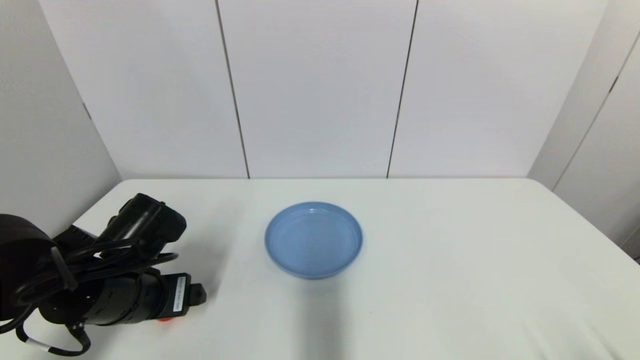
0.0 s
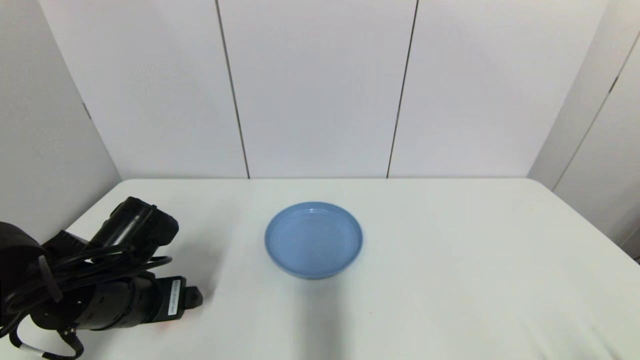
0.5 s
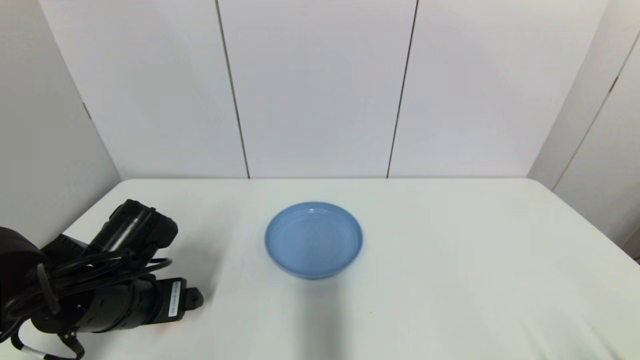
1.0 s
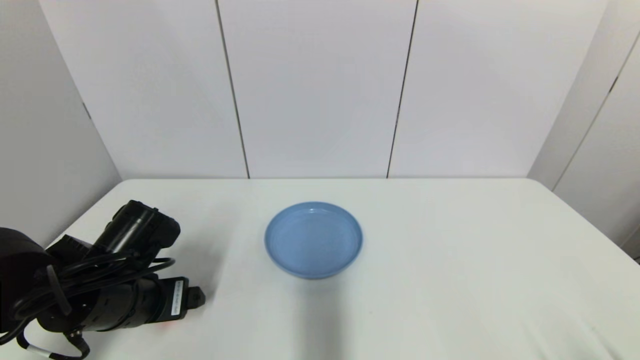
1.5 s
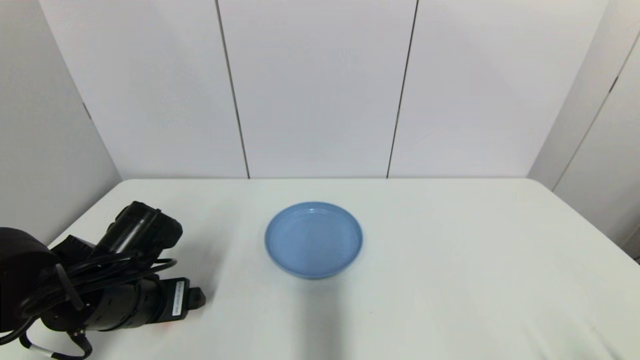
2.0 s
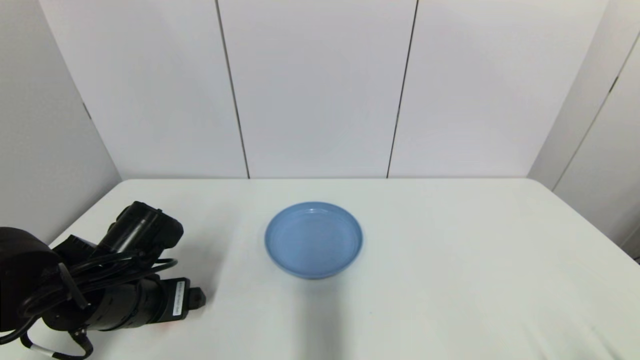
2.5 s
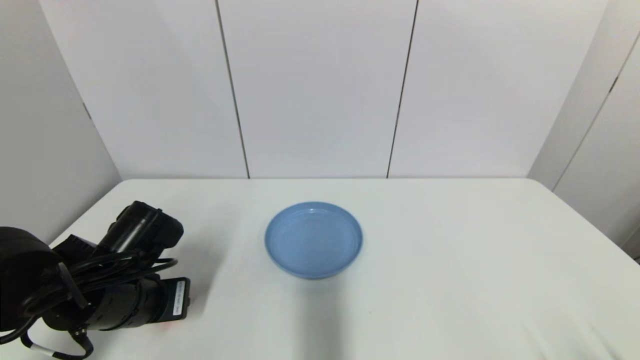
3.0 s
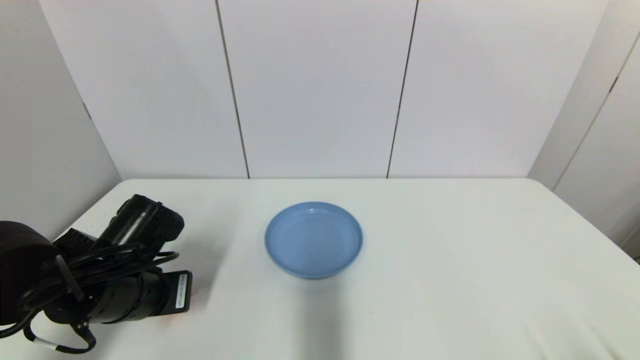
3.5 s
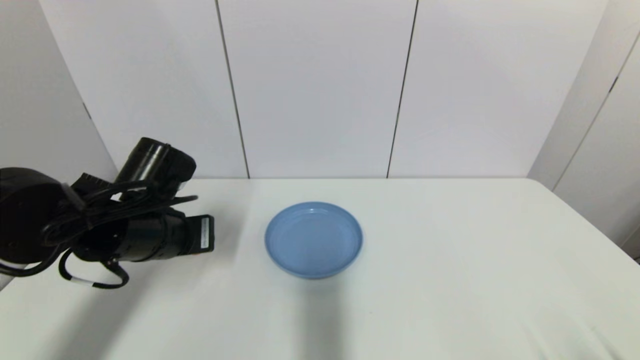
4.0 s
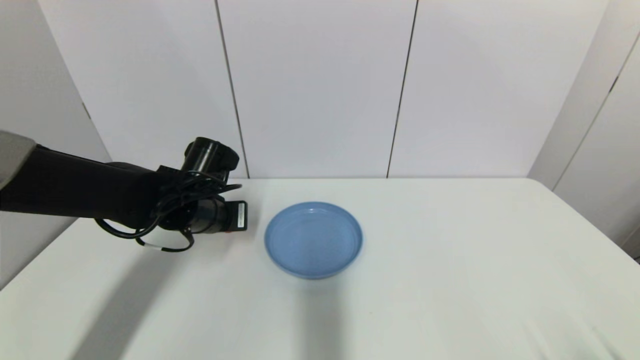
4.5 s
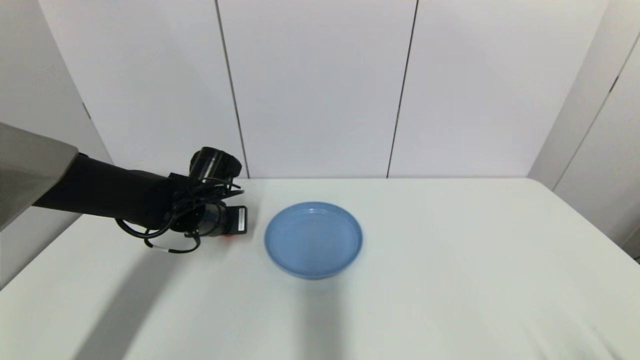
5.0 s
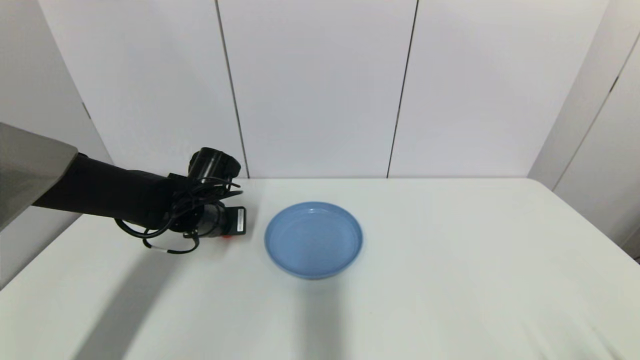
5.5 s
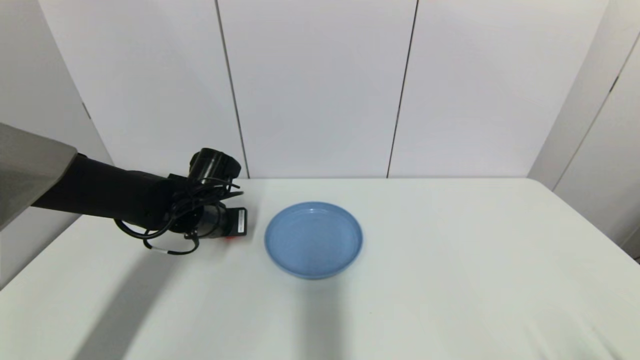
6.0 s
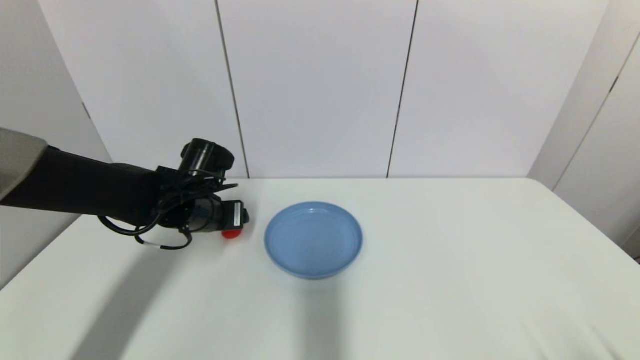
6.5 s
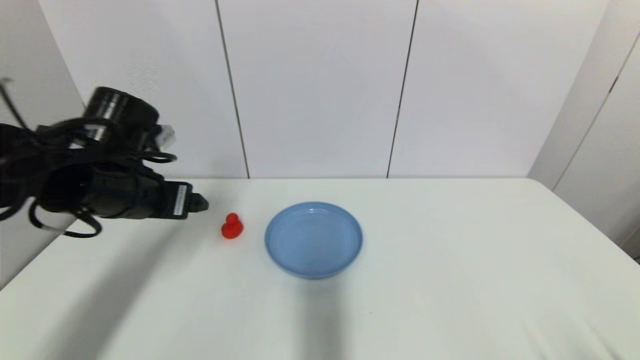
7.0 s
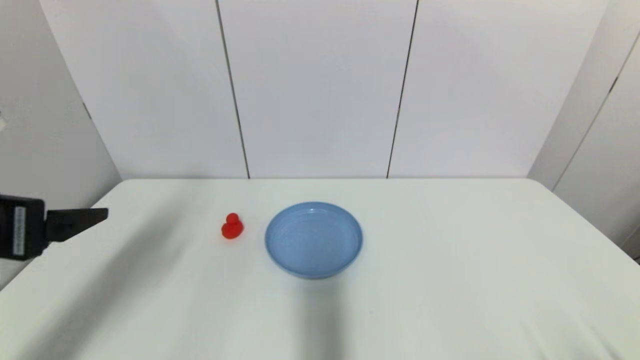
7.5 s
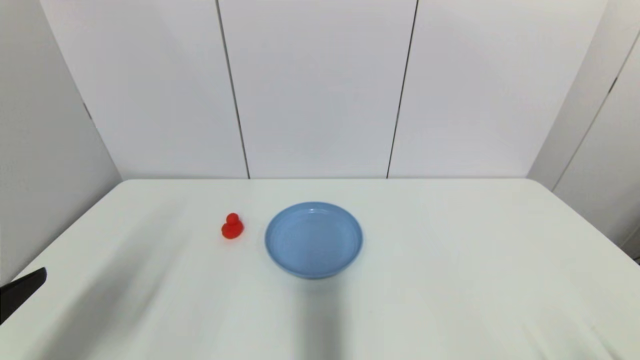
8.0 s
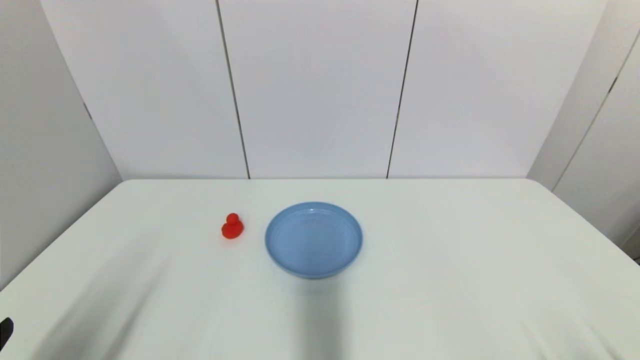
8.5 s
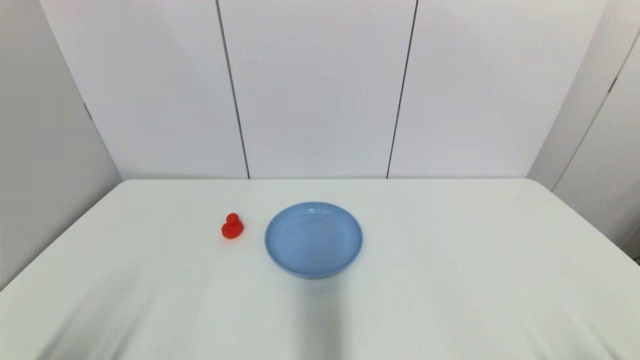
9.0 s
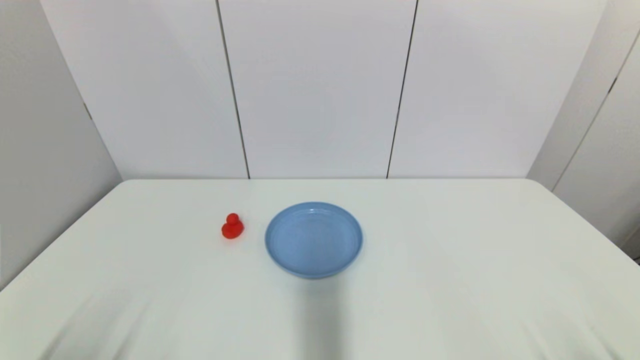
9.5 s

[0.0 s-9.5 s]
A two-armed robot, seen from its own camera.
Step, 0.0 to 3.5 s: Grasp the red duck with left gripper.
Step, 4.5 to 6.0 s: Place the red duck on the table with left gripper.
0.0 to 2.0 s: Neither gripper changes place.
2.0 to 4.0 s: The left gripper goes approximately 5 cm upward, and closes up.
4.0 to 5.5 s: The left gripper heads forward and downward, covering some 10 cm.
5.5 to 7.5 s: The left gripper travels backward, upward and to the left by about 25 cm, and opens up.
7.5 to 9.5 s: The left gripper goes approximately 25 cm downward and backward.

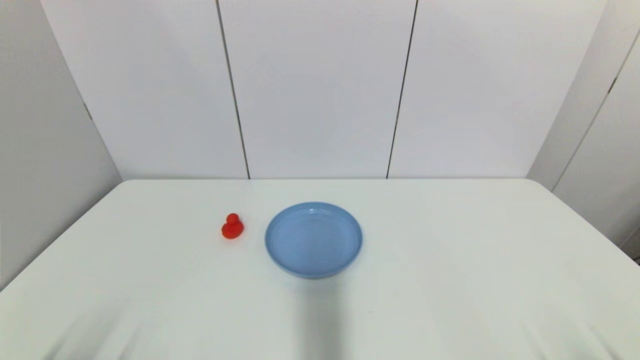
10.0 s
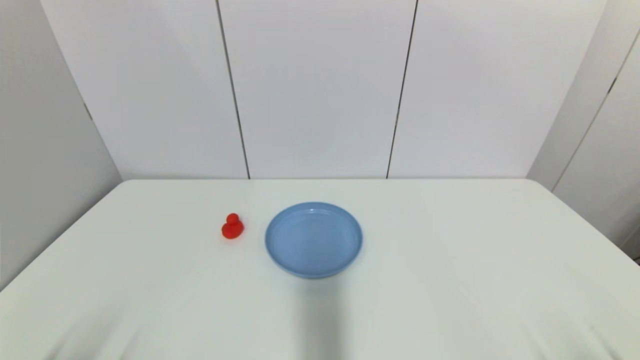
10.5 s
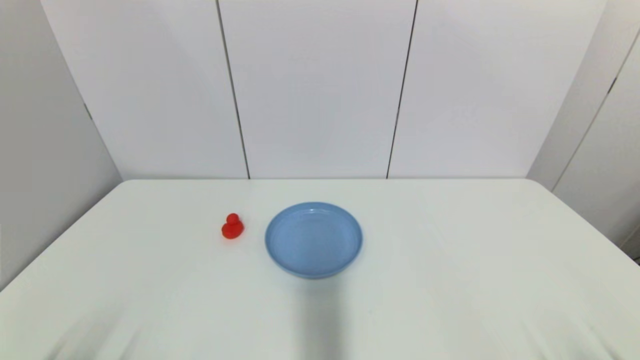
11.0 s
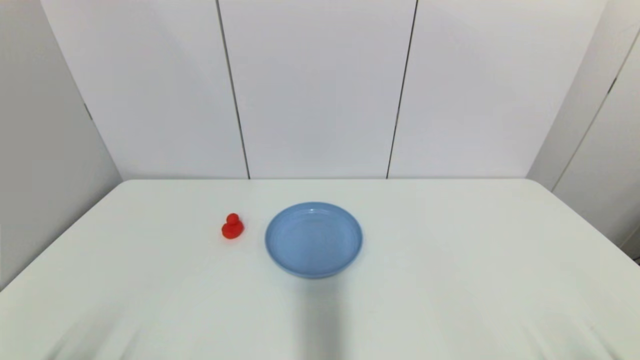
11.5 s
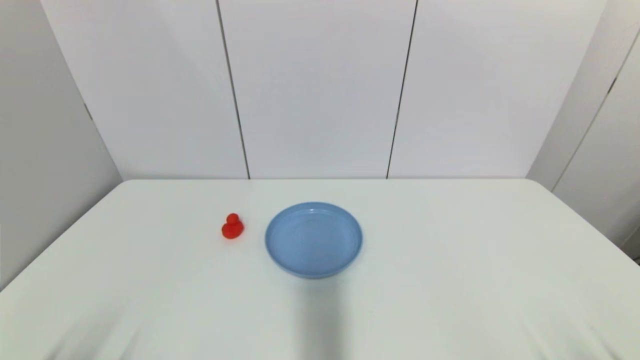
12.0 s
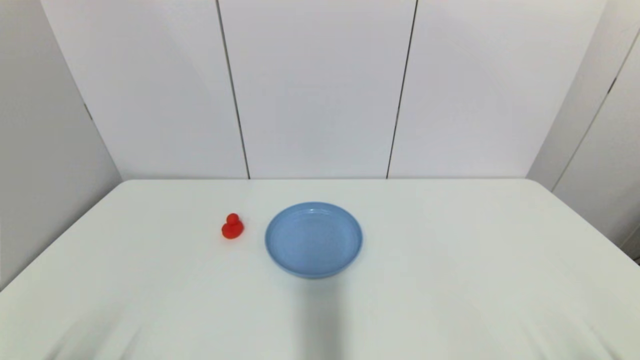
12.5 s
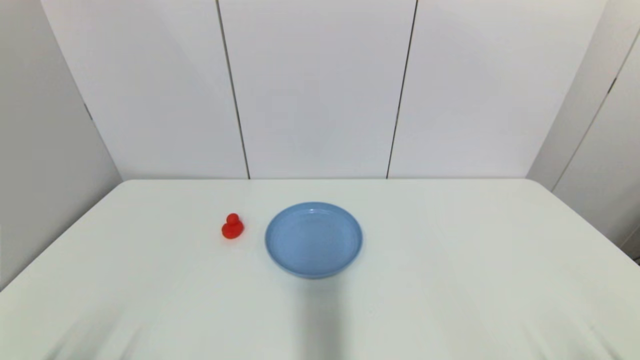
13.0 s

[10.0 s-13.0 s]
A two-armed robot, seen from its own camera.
10.0 to 13.0 s: Both grippers stay about where they are.

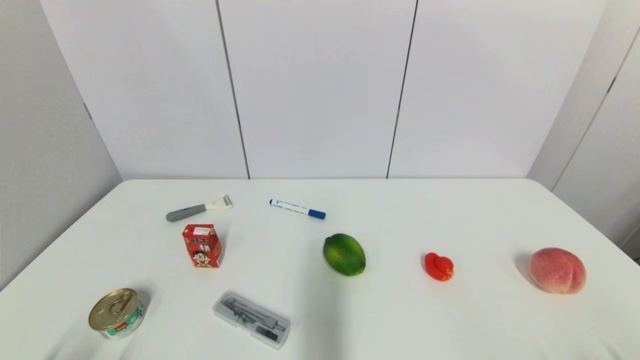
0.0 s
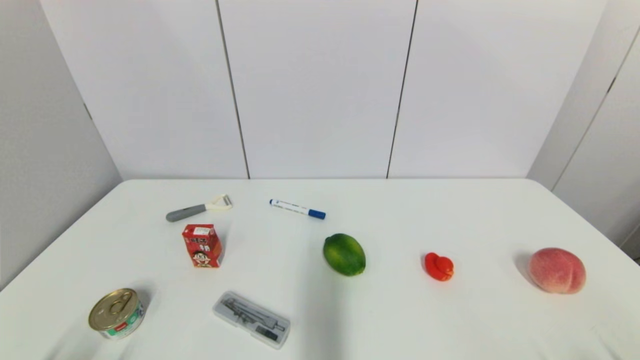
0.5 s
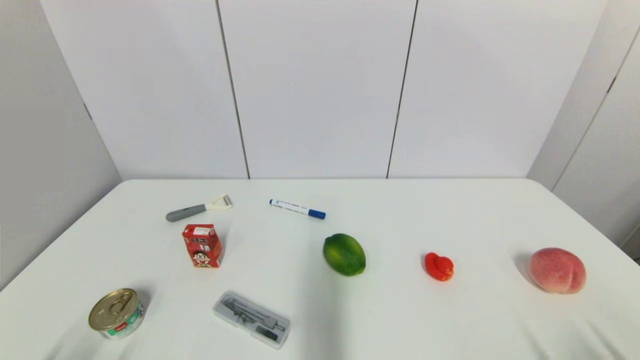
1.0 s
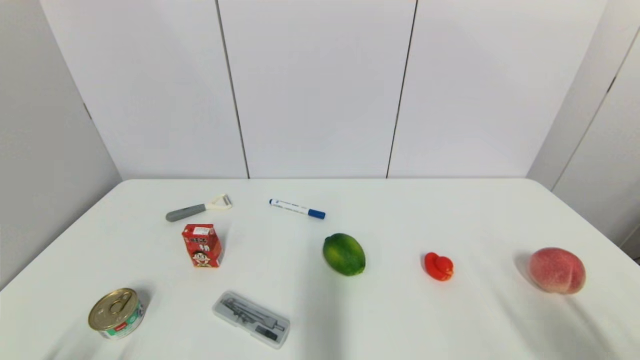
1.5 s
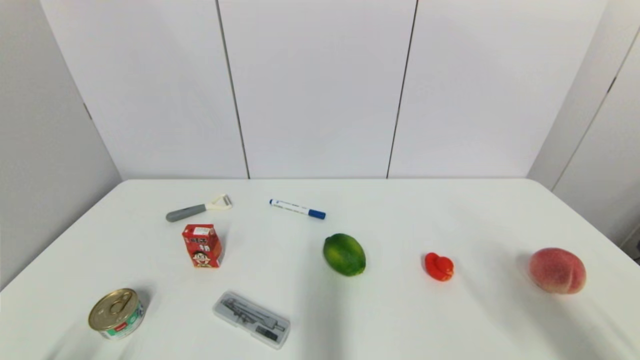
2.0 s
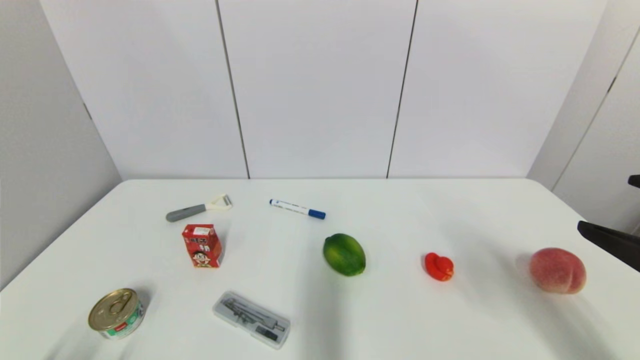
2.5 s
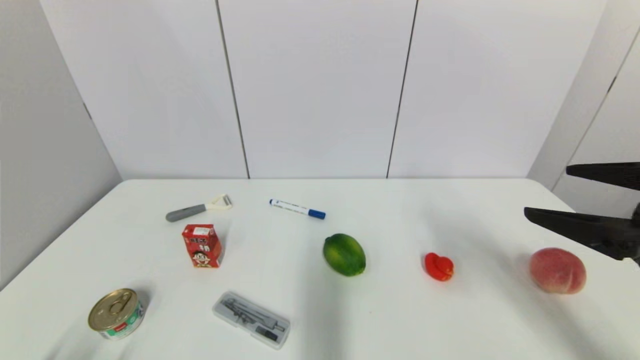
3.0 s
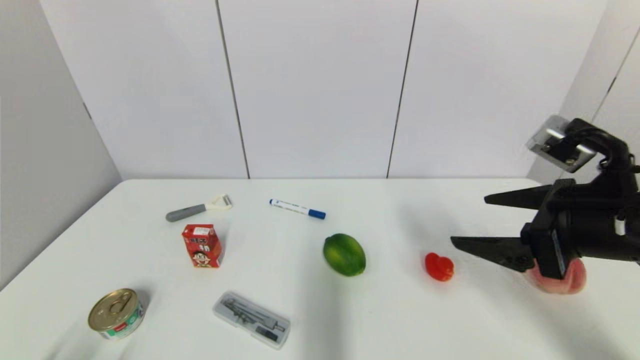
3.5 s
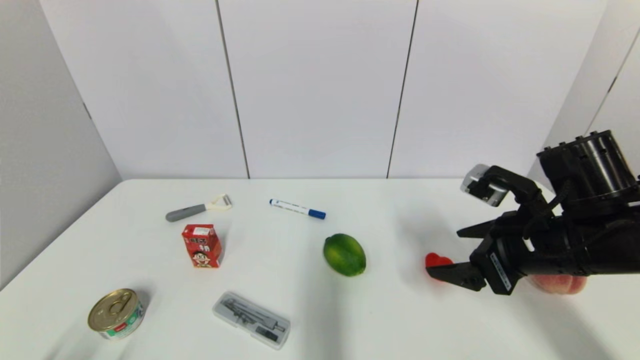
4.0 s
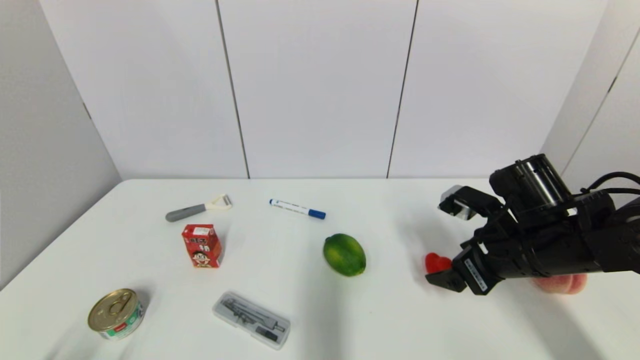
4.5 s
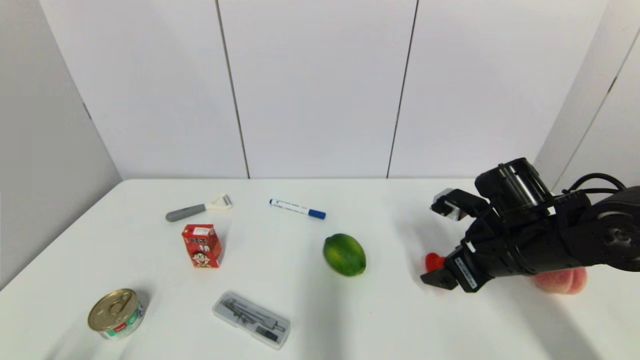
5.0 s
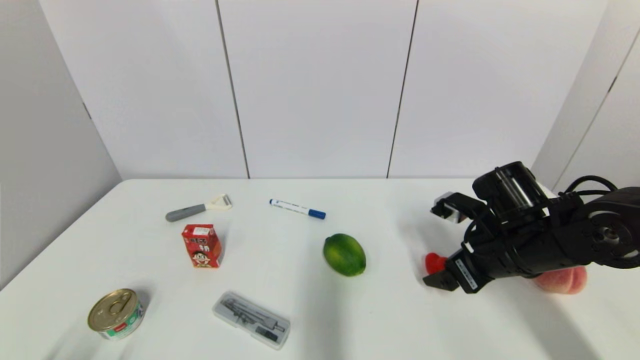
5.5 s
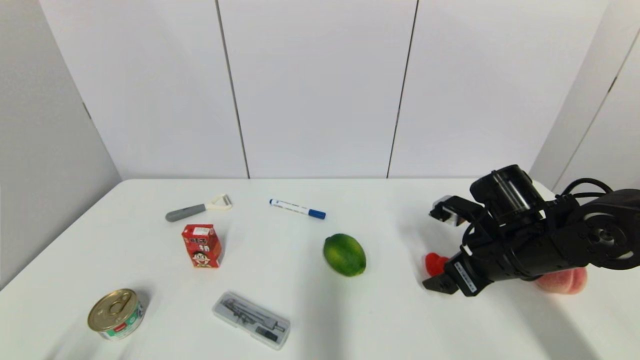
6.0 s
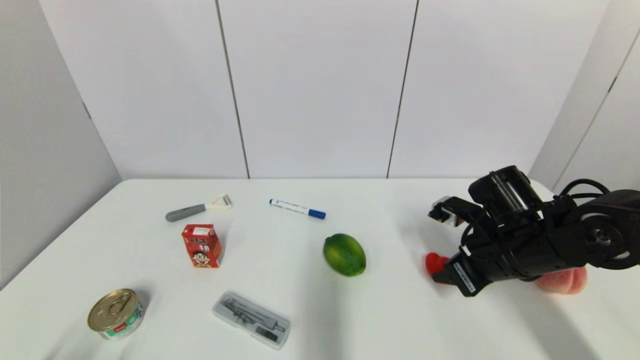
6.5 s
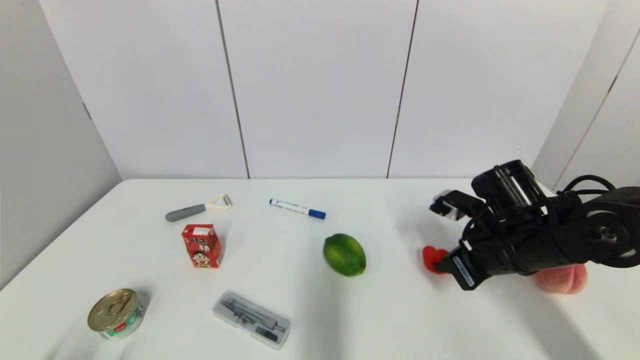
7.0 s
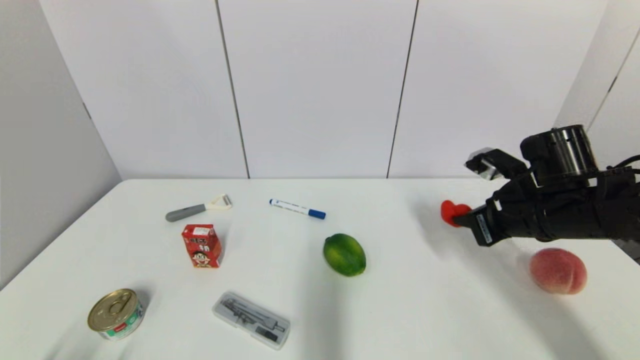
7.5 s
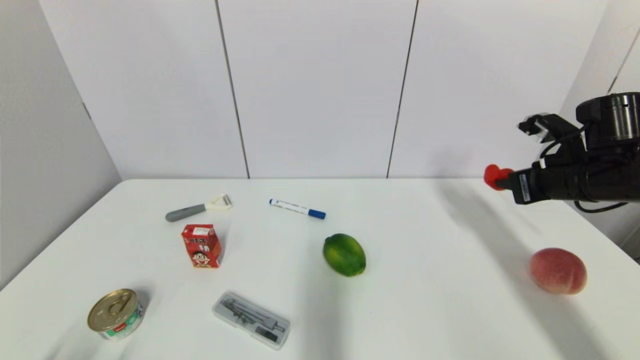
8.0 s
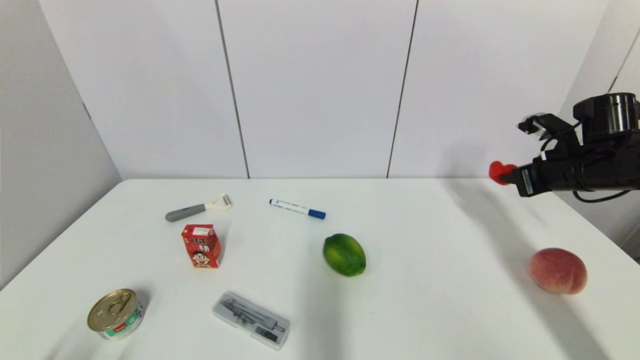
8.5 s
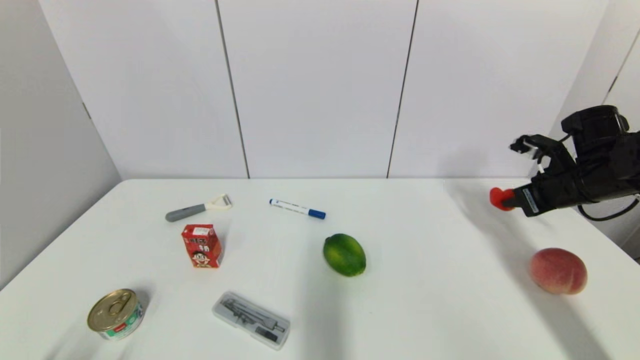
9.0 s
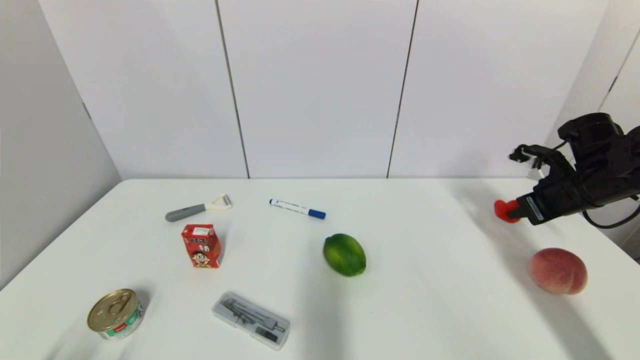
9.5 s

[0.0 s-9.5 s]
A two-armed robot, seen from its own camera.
Step, 2.0 to 7.0 s: Grasp the red duck with right gripper.
0.0 to 2.0 s: The right gripper goes some 20 cm upward and forward.
2.0 to 4.0 s: The right gripper is displaced forward and to the left by about 20 cm.
4.0 to 5.5 s: The right gripper heads downward, covering approximately 5 cm.
5.5 to 7.5 s: The right gripper shifts by approximately 5 cm, and closes up.
7.5 to 9.5 s: The right gripper is displaced to the right and forward by roughly 15 cm.
